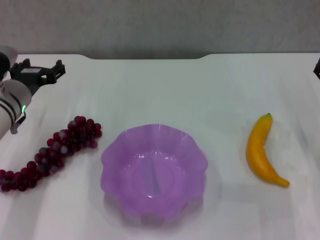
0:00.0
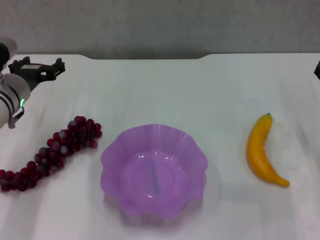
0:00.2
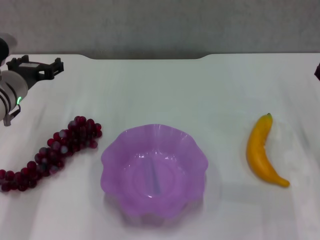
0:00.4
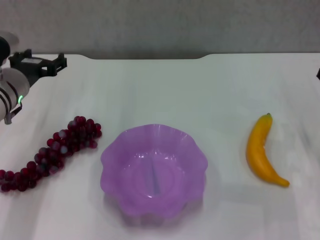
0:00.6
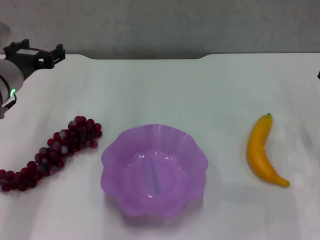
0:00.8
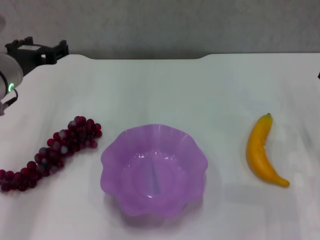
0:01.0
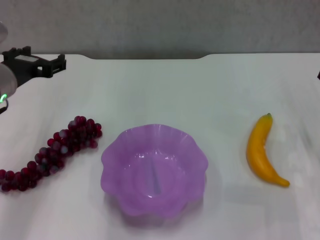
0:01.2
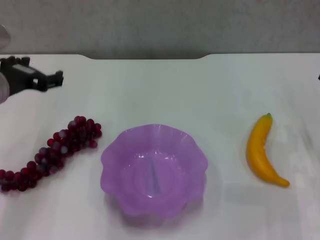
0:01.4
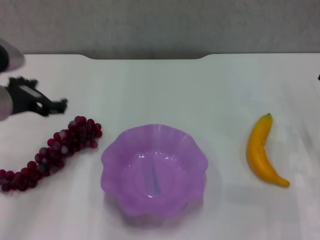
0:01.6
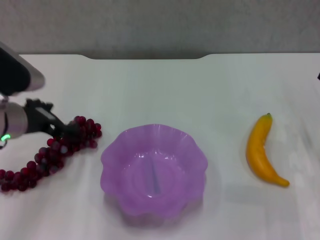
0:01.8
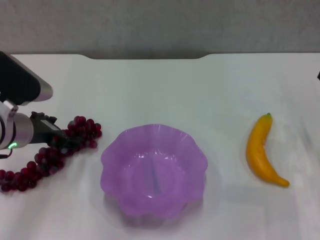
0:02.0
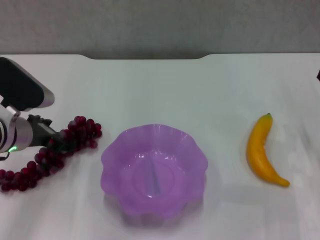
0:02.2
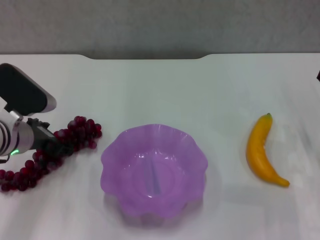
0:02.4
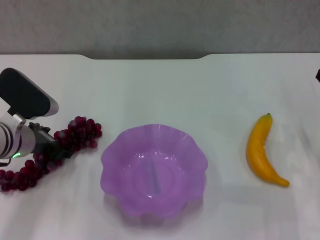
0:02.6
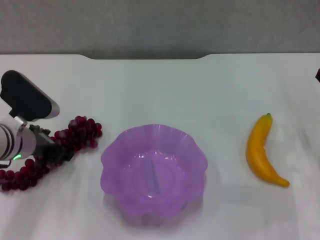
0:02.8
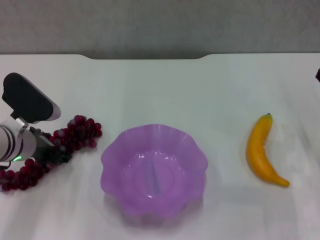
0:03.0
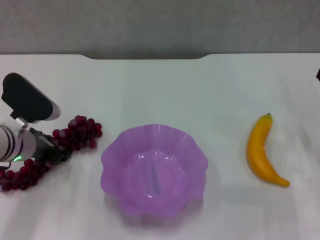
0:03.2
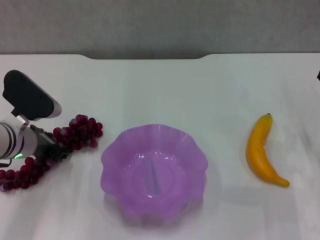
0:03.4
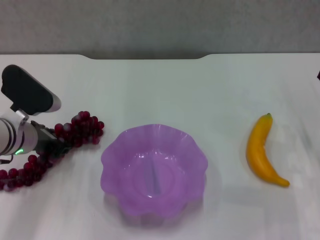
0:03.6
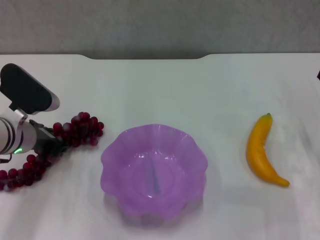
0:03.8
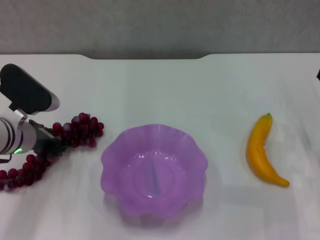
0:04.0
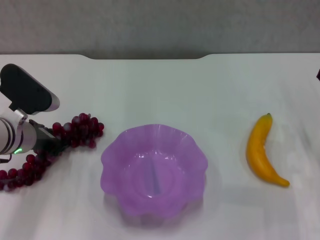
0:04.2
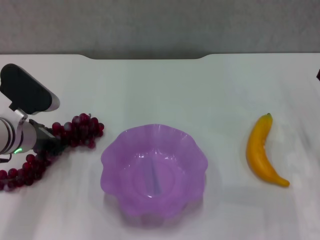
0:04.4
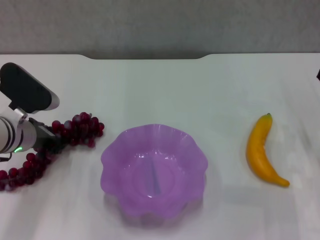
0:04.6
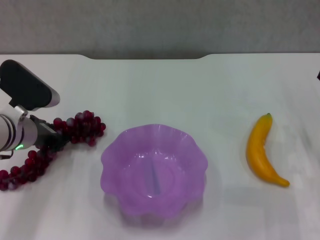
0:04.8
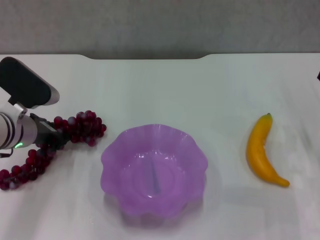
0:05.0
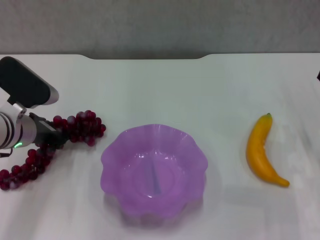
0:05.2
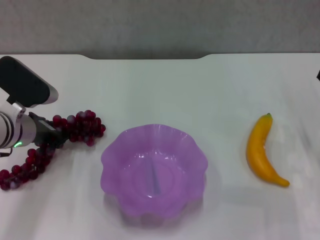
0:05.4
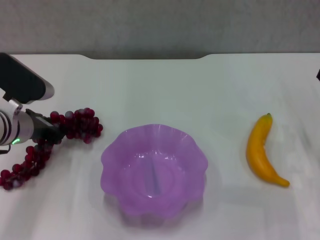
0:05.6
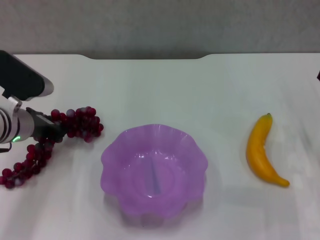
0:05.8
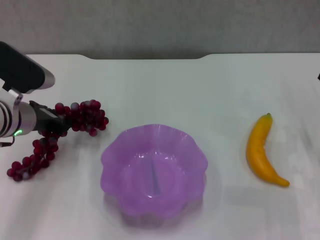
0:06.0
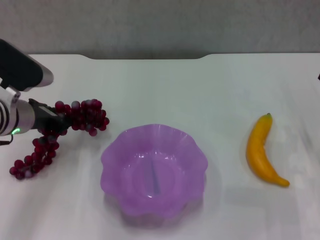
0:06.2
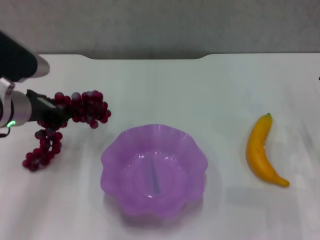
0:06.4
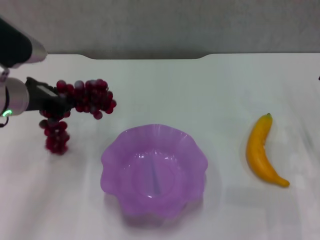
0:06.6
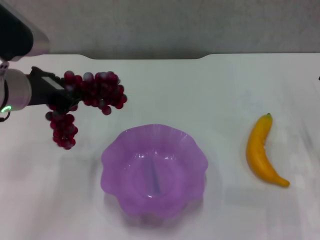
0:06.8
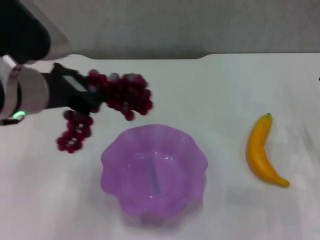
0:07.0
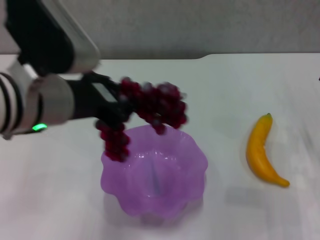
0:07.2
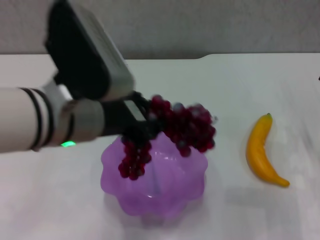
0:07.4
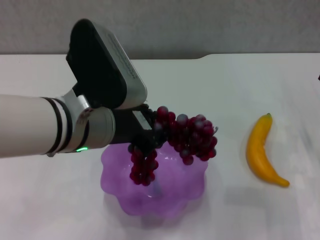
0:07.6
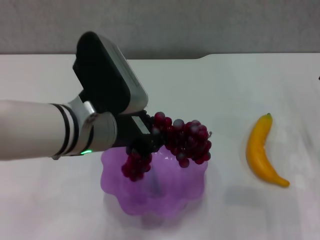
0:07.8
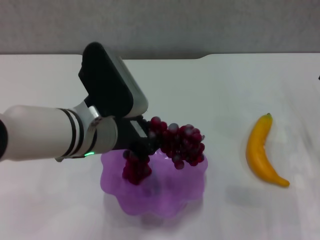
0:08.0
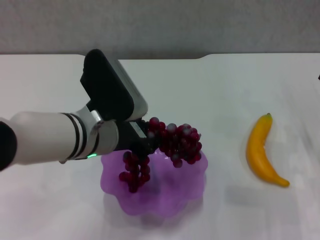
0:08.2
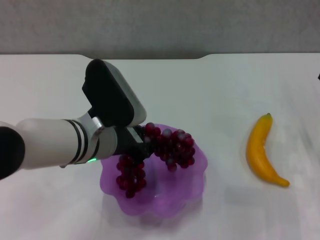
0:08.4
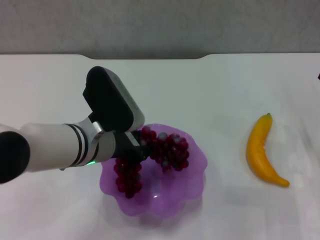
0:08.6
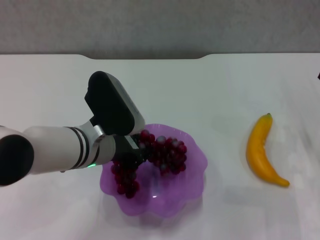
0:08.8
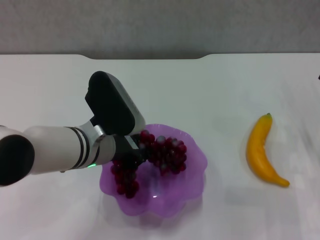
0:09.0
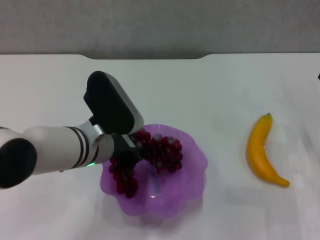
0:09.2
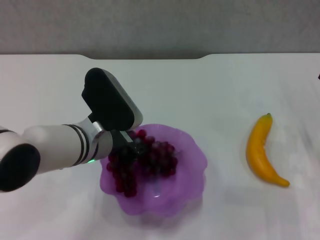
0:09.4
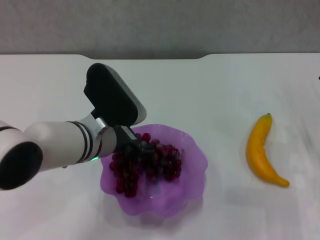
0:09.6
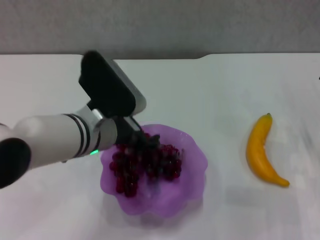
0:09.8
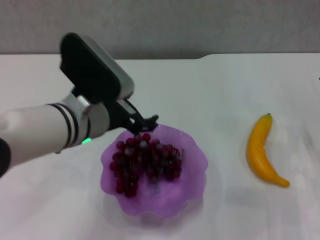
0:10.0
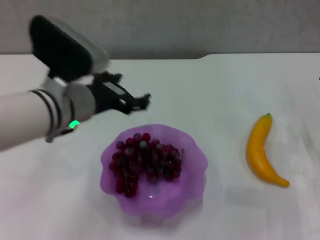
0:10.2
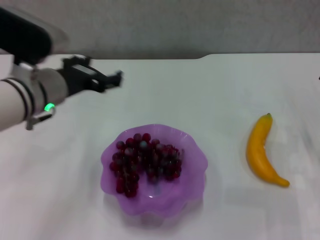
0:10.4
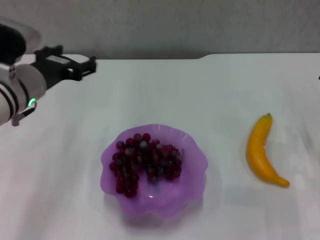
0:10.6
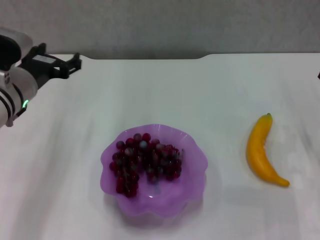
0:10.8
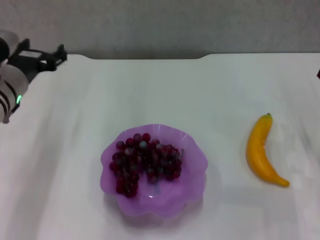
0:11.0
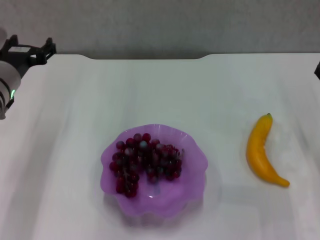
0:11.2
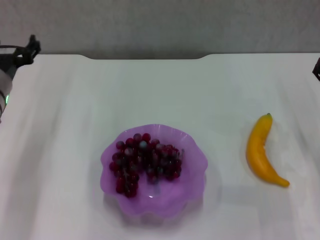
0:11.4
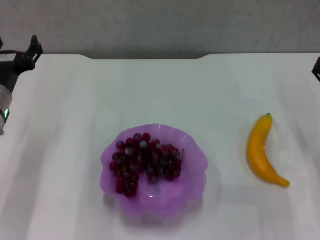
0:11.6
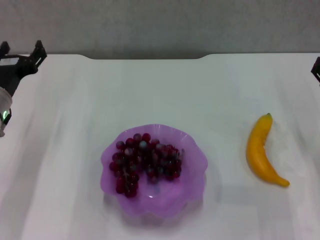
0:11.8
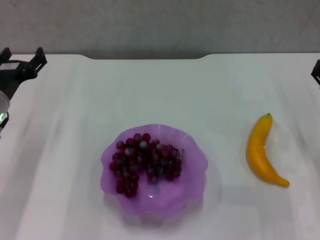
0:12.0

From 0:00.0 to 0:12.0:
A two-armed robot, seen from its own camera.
Step, from 0:00.0 to 0:03.6: Grasp the grape with left gripper.
Step, from 0:03.8 to 0:09.6: Place the grape in the purple plate with left gripper.
From 0:00.0 to 0:01.6: The left gripper goes some 10 cm upward and backward.
From 0:01.6 to 0:03.0: The left gripper moves downward, about 10 cm.
From 0:03.0 to 0:04.4: The left gripper closes up.
From 0:04.4 to 0:06.0: The grippers stay close to where they were, moving slightly.
From 0:06.0 to 0:07.6: The left gripper is displaced to the right, backward and upward by approximately 20 cm.
From 0:07.6 to 0:09.0: The left gripper moves downward, approximately 10 cm.
From 0:09.0 to 0:10.4: The left gripper travels to the left and upward by about 10 cm, and opens its fingers.
From 0:10.4 to 0:12.0: The left gripper is displaced to the left and downward by approximately 15 cm.

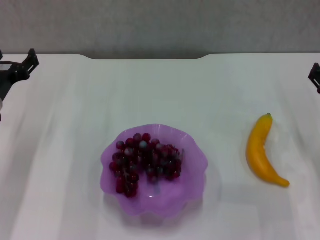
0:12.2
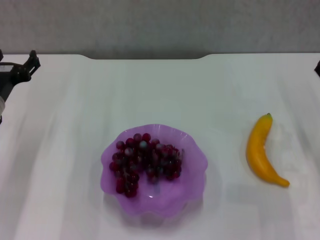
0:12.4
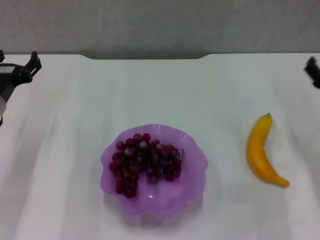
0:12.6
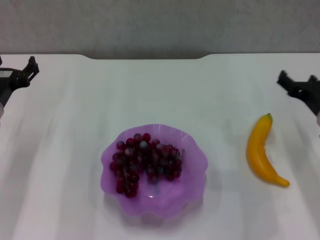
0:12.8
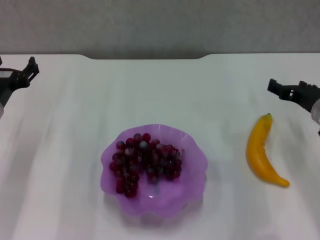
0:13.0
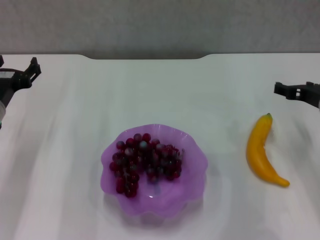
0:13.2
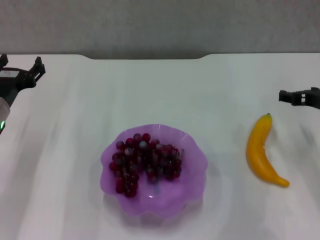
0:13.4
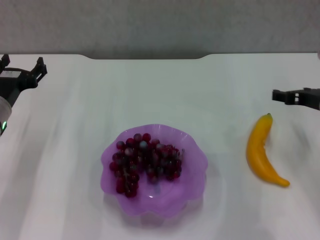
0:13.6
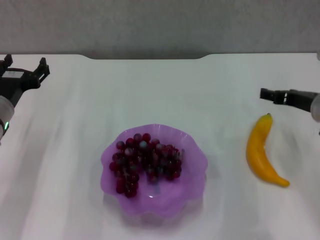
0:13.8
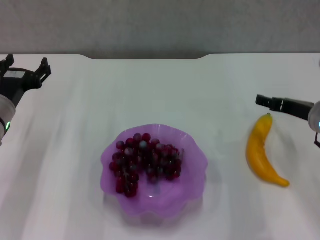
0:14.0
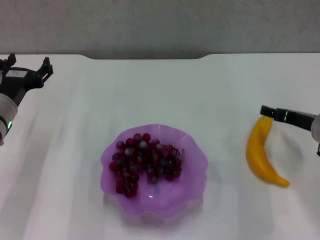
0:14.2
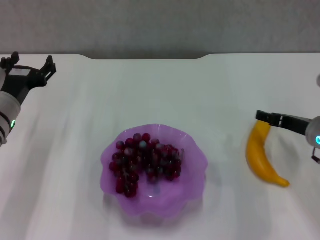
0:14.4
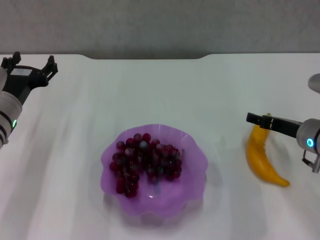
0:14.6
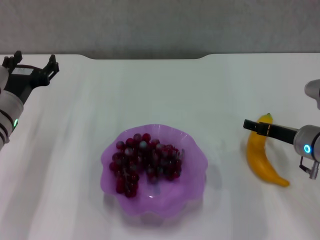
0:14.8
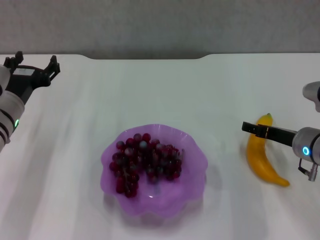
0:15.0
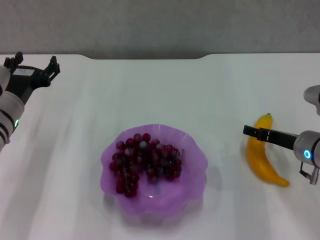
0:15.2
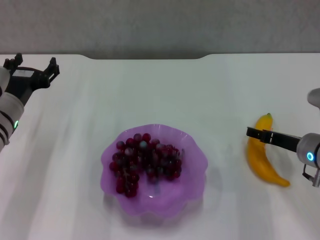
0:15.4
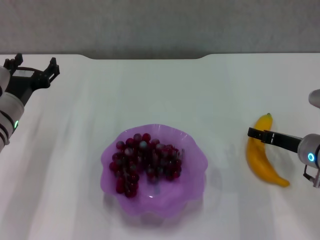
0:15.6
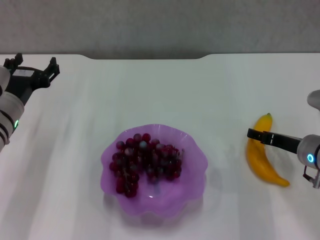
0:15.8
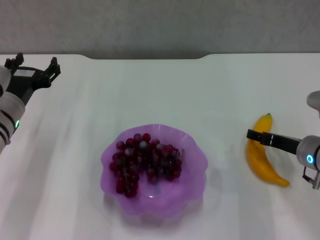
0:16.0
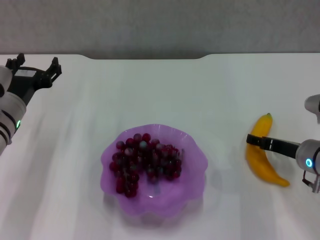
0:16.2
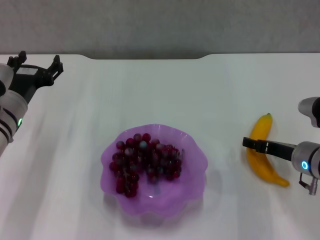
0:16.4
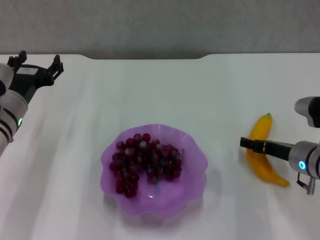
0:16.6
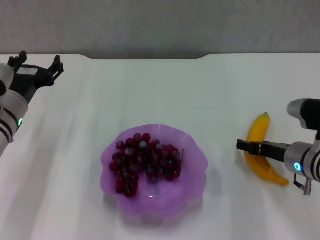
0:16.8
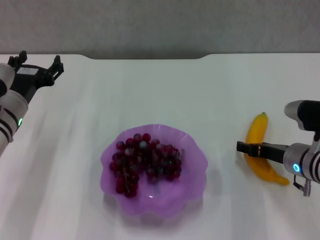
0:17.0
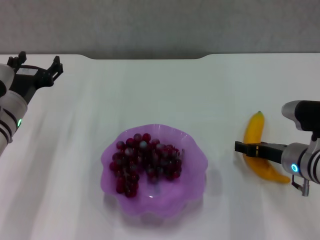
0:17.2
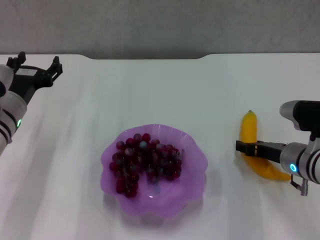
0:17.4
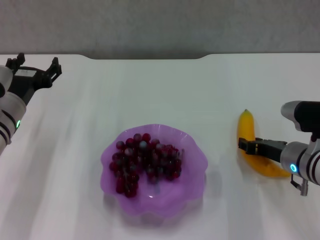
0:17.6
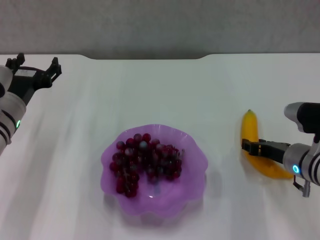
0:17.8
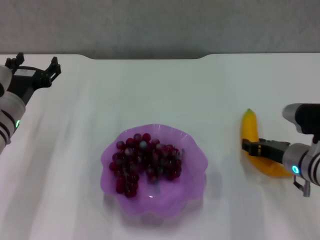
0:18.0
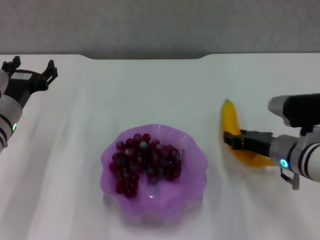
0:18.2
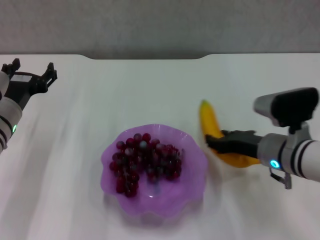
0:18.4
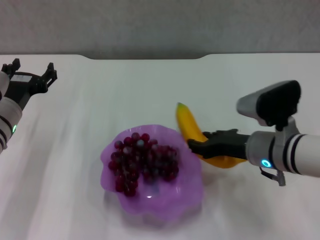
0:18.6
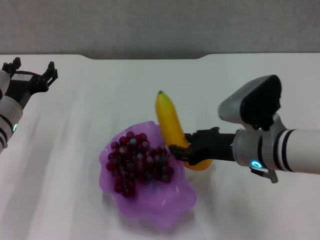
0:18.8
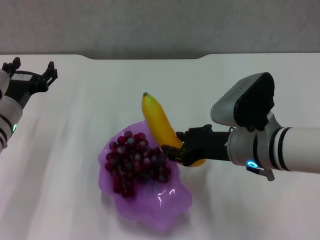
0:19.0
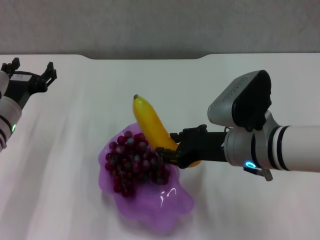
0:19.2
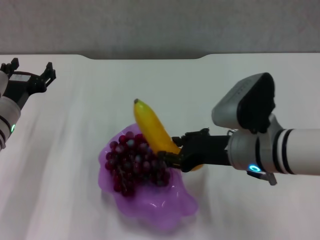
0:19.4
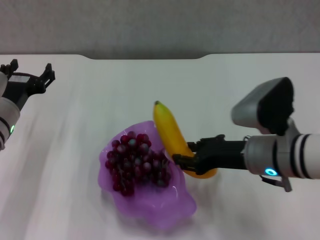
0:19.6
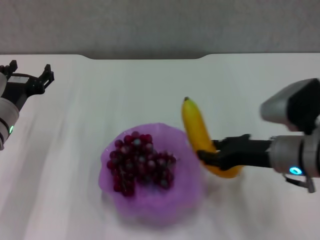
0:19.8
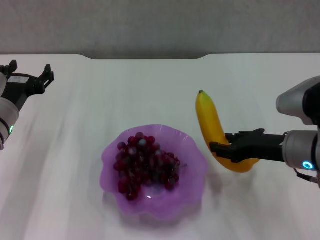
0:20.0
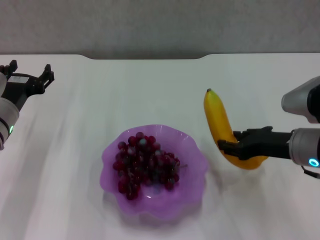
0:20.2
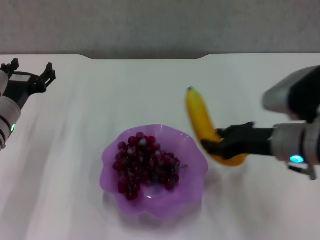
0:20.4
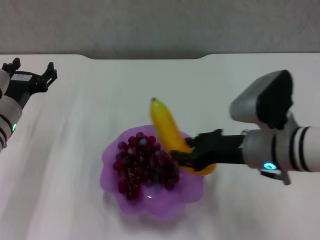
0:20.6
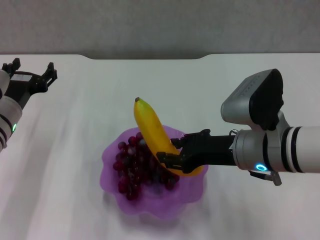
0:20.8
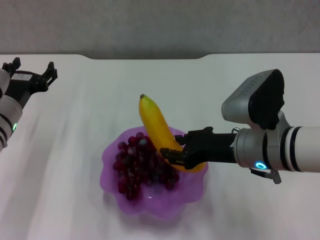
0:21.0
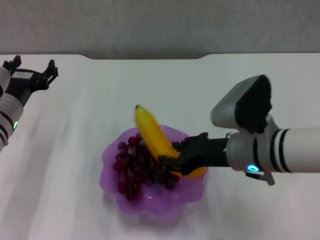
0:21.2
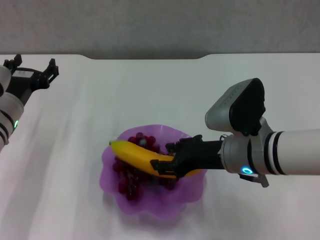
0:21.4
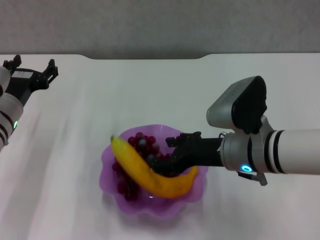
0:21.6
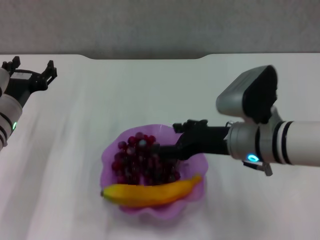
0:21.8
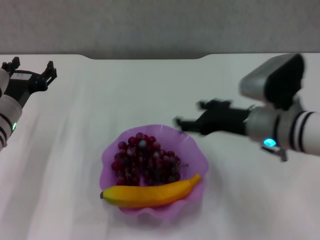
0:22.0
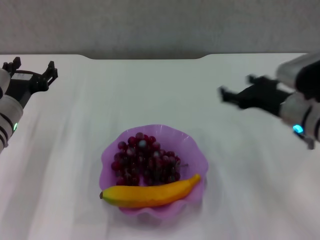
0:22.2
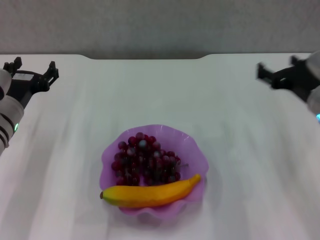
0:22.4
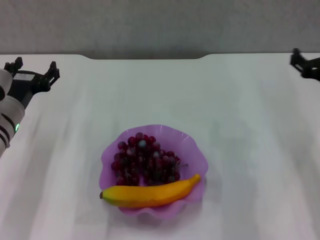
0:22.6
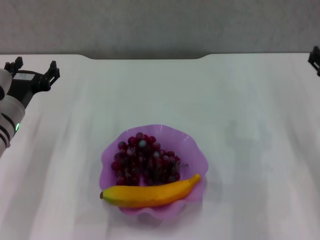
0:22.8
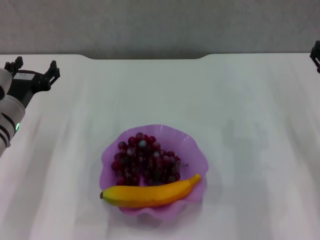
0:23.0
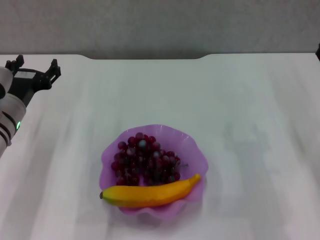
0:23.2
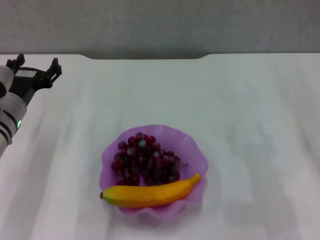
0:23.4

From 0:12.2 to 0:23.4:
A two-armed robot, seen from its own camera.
Step, from 0:12.2 to 0:17.6: Grasp the banana with right gripper.
Step, from 0:17.8 to 0:21.2: Place the banana in the purple plate with right gripper.
From 0:12.2 to 0:13.8: The right gripper moves some 5 cm.
From 0:13.8 to 0:15.4: The right gripper is displaced downward by approximately 5 cm.
From 0:15.4 to 0:17.0: There are only small adjustments of the grippers.
From 0:17.0 to 0:18.6: The right gripper moves to the left and upward, approximately 10 cm, and closes up.
From 0:18.6 to 0:20.2: The right gripper heads to the right, covering roughly 5 cm.
From 0:20.2 to 0:21.8: The right gripper moves to the left, roughly 10 cm, and opens.
From 0:21.8 to 0:23.4: The right gripper shifts approximately 20 cm to the right.
